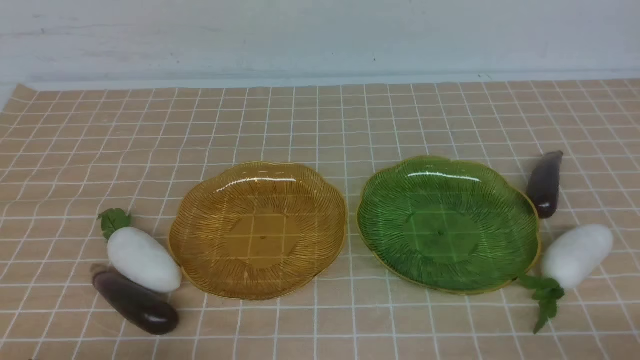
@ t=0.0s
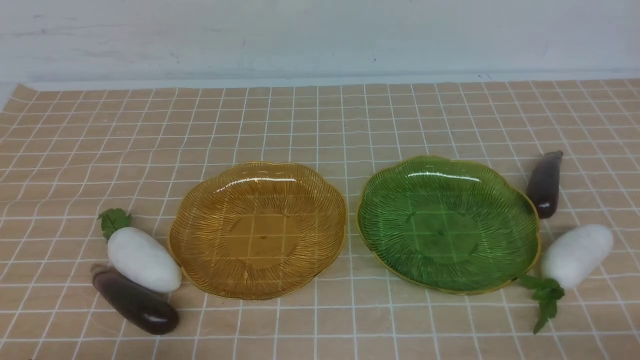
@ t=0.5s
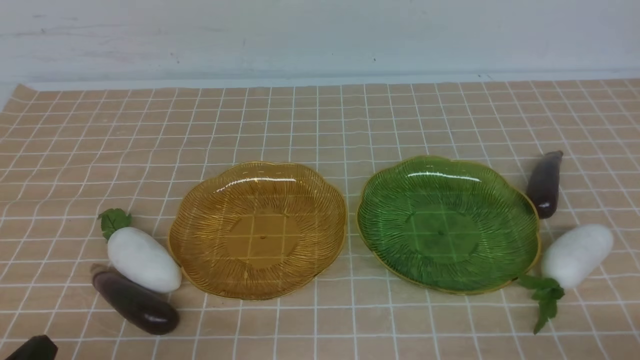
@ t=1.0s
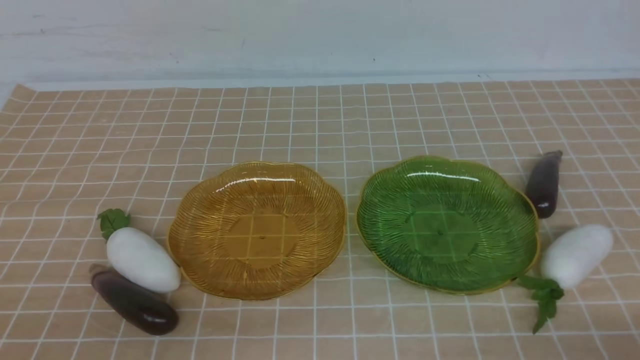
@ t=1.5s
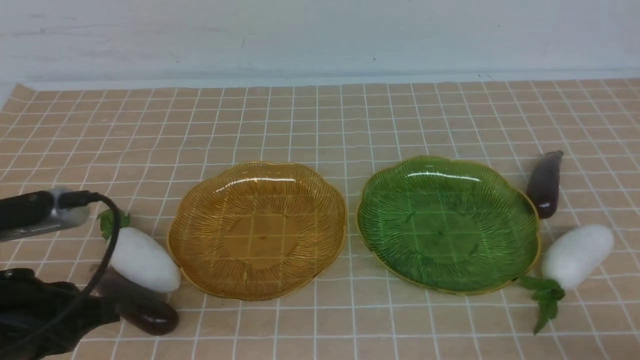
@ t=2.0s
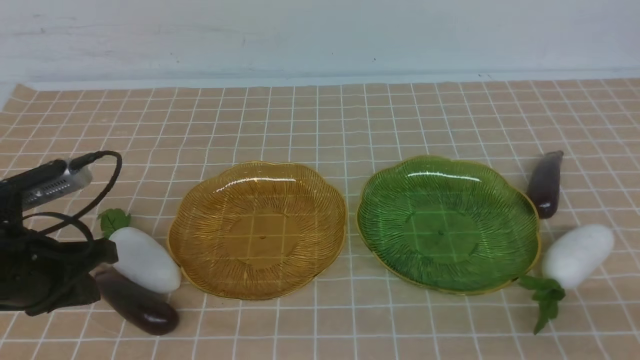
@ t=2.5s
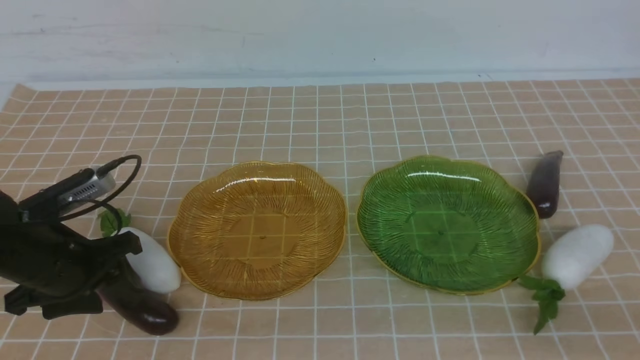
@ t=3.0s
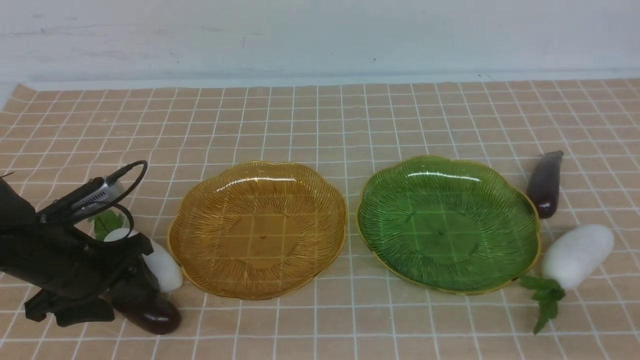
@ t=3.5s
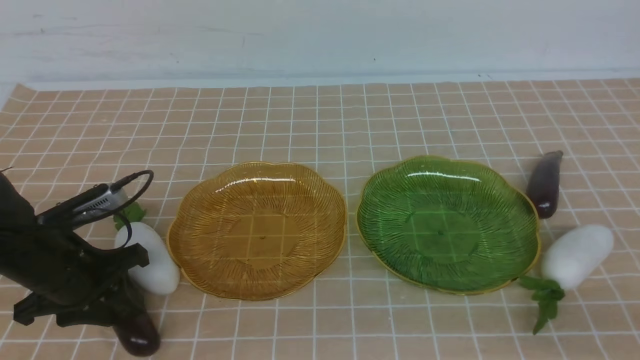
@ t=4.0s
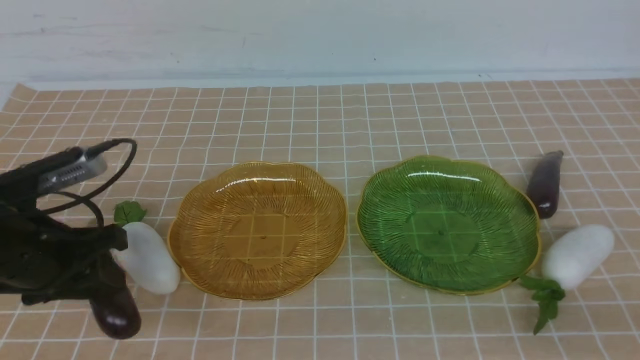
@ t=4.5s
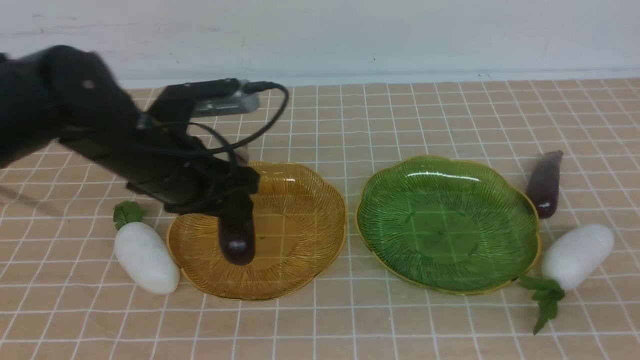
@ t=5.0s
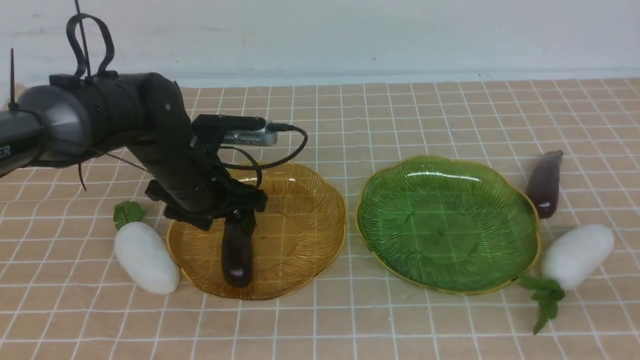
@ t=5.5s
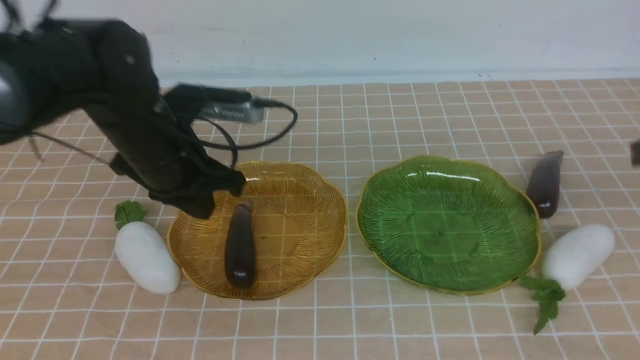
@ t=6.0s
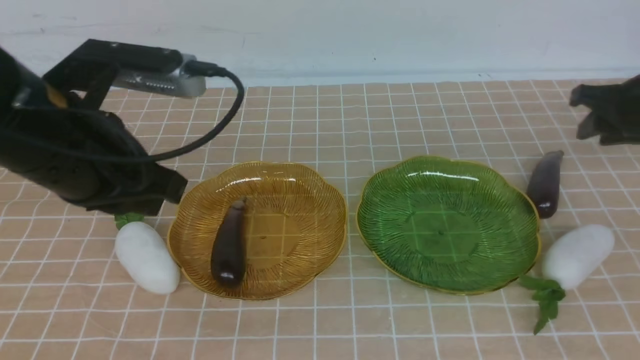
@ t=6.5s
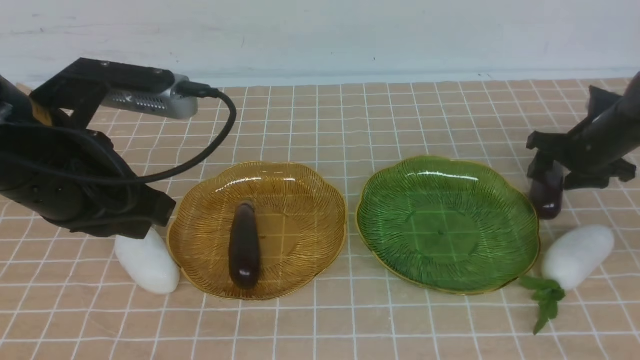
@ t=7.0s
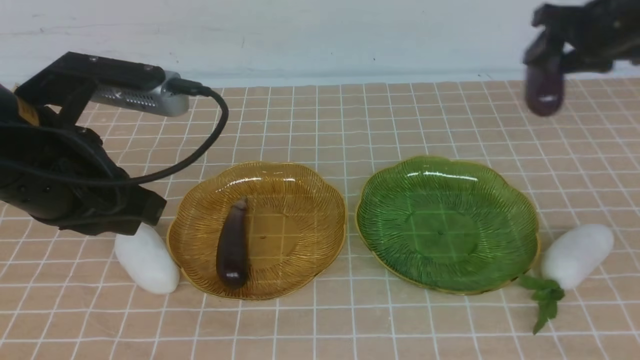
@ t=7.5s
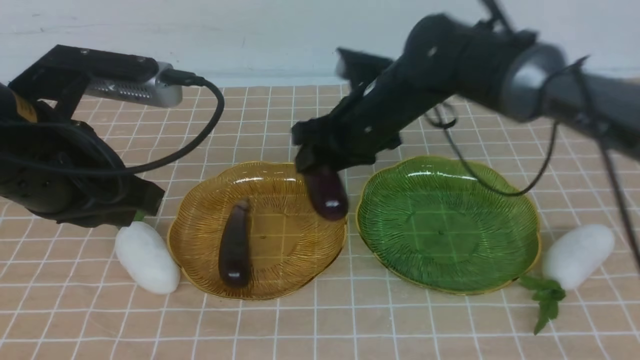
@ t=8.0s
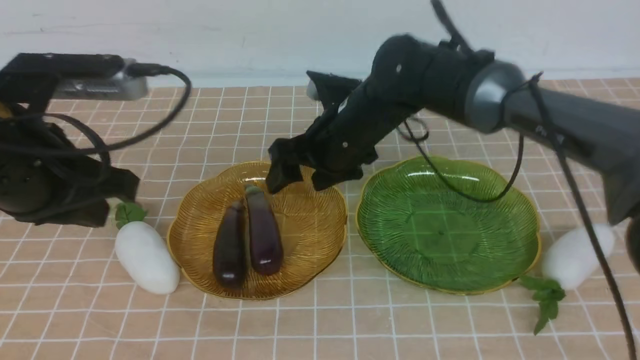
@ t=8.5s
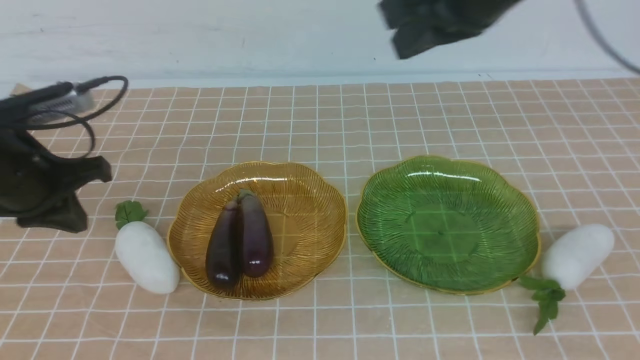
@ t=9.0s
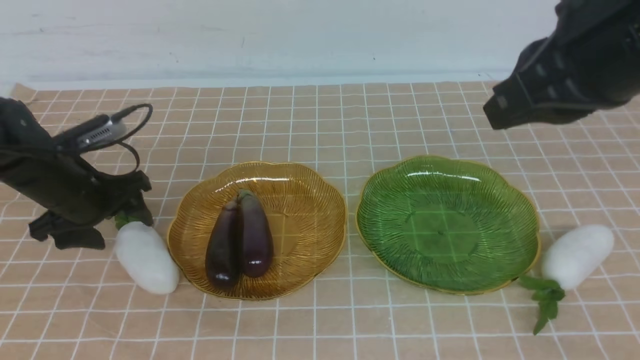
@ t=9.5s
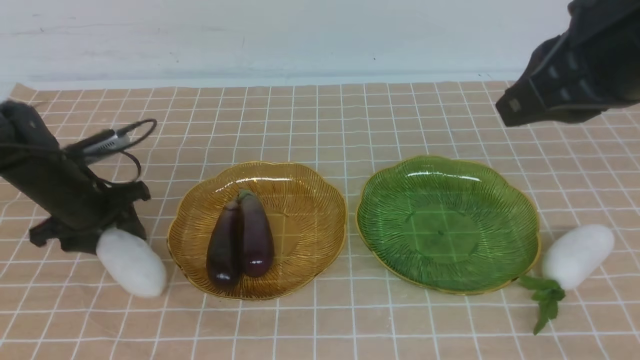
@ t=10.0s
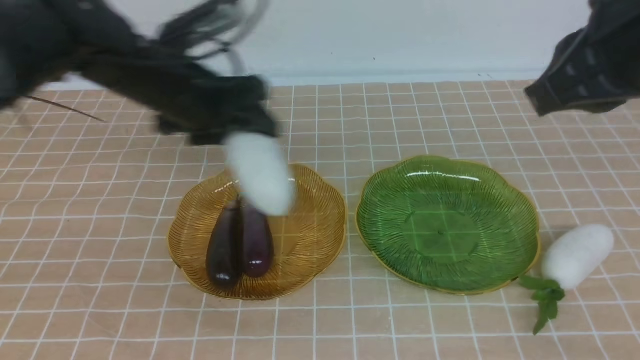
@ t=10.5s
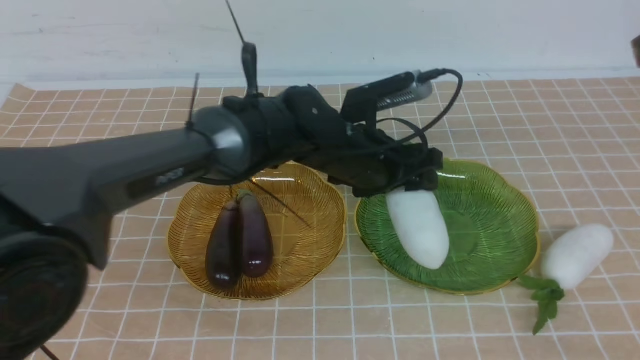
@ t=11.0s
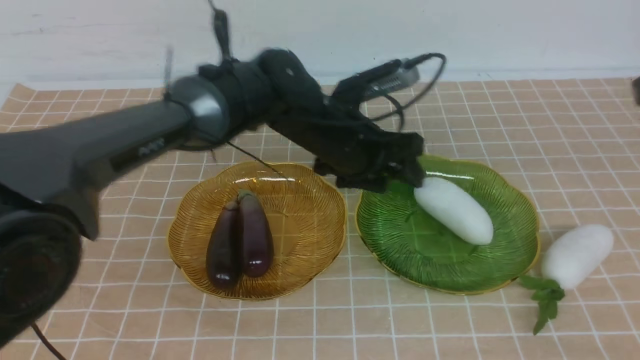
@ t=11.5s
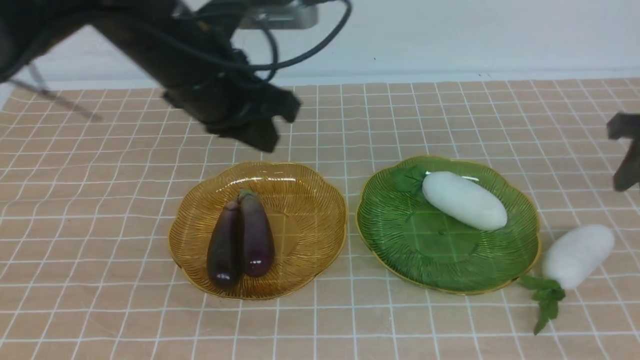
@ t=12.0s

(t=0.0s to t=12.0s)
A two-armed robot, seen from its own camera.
Step, t=0.0s - t=5.5s: use the left arm to grab an eggplant and put it into the left plate.
Step, t=6.0s - t=8.0s: use the right arm to grab an eggplant and put it into the left plate.
Step, t=8.5s - t=11.0s: use the left arm to grab a radish and put it into the right plate.
t=0.0s - t=2.0s: The left gripper travels forward and upward by approximately 15 cm.
t=2.0s - t=4.0s: The left gripper travels forward and downward by some 15 cm, and opens up.
t=4.0s - t=6.0s: The left gripper moves up and down over approximately 15 cm, changing direction 2 times, and closes. The right gripper goes about 25 cm forward.
t=6.0s - t=8.0s: The right gripper goes approximately 30 cm to the left, and opens its fingers, while the left gripper travels backward by approximately 5 cm.
t=8.0s - t=10.0s: The right gripper goes some 30 cm upward, to the right and backward, and closes; the left gripper travels forward, to the right and downward by some 20 cm, and opens up.
t=10.0s - t=12.0s: The right gripper is displaced downward, to the right and forward by approximately 30 cm, and opens; the left gripper heads backward and upward, covering some 15 cm, goes to the right and returns, some 15 cm each way, and closes its fingers.

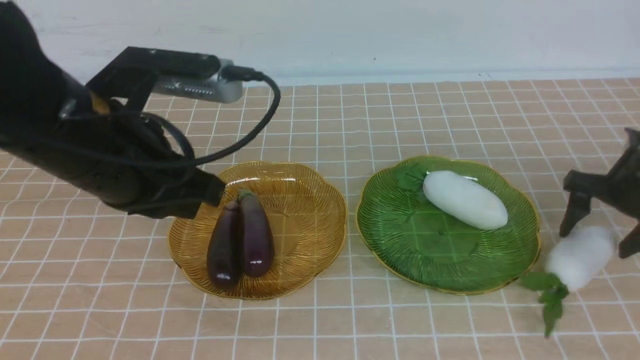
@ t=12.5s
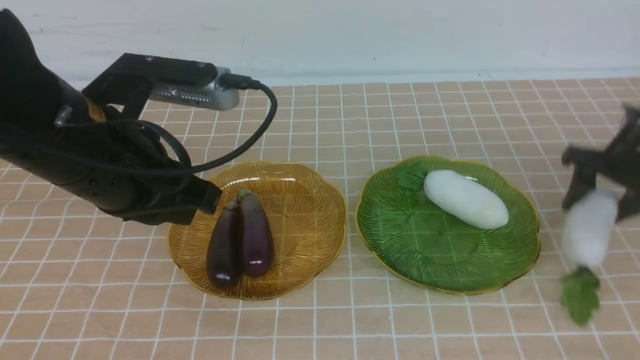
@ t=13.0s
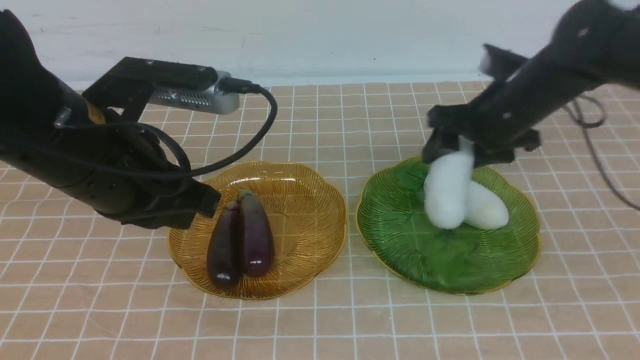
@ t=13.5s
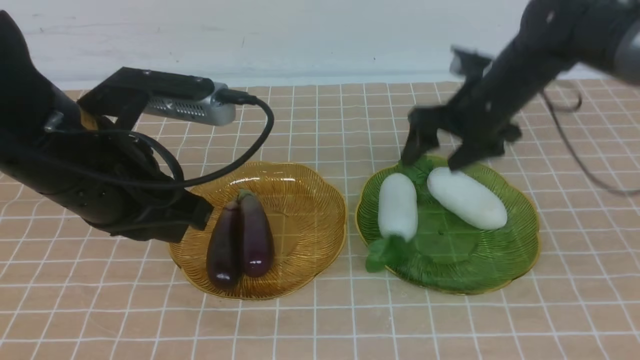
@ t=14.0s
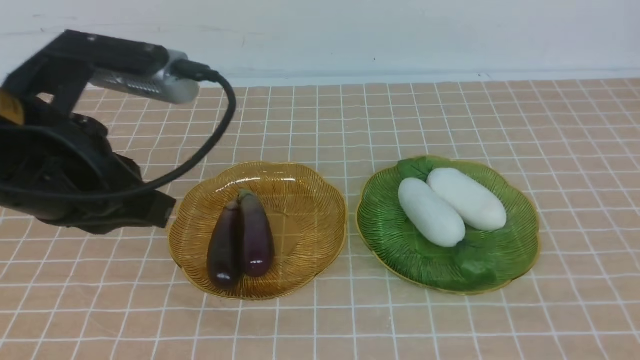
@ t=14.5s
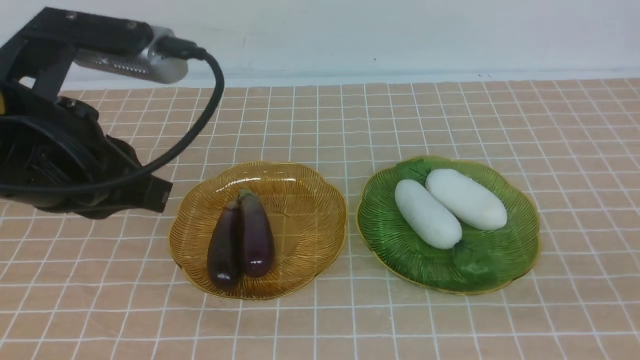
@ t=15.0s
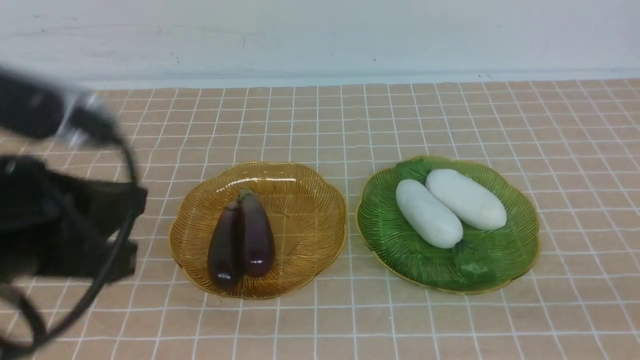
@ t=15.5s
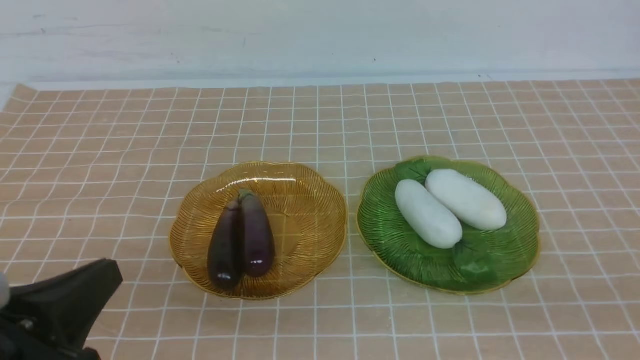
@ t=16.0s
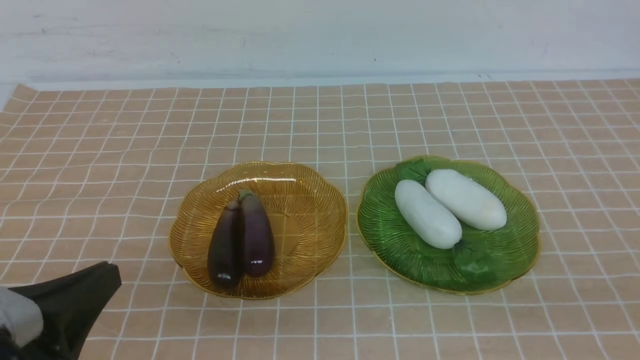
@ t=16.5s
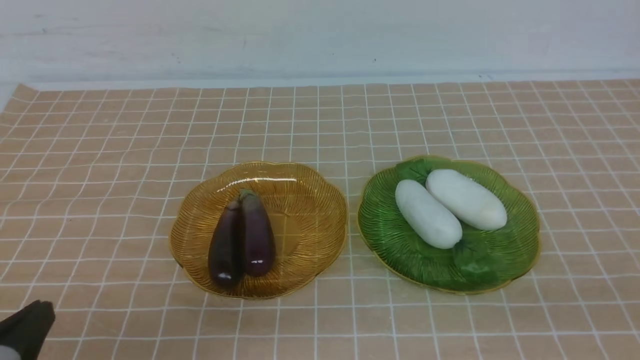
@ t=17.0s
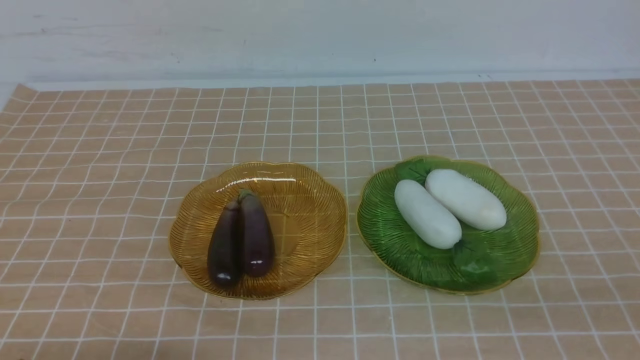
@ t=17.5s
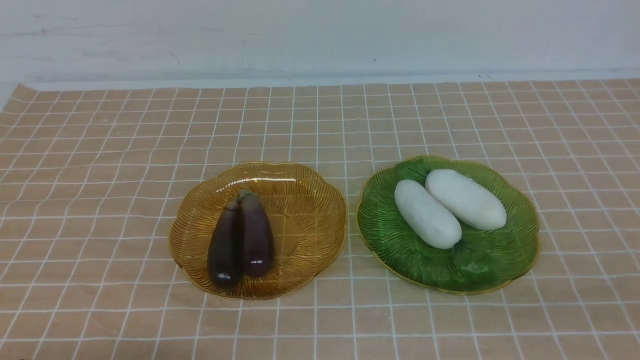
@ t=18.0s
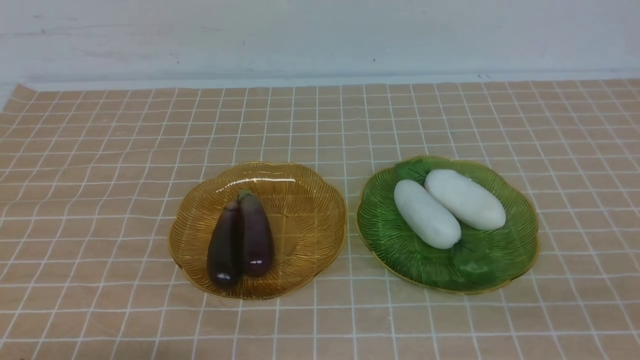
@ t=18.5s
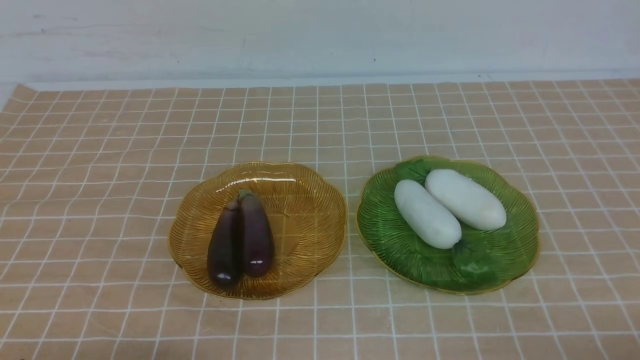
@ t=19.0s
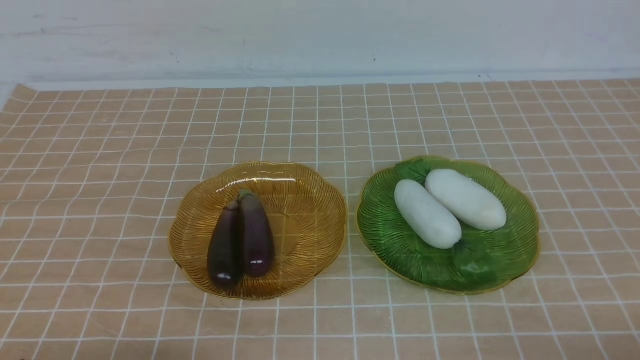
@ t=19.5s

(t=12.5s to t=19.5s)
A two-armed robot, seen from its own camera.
Step, t=12.5s - t=14.0s: use the right arm to grab a radish and put it into the right plate.
t=12.5s - t=14.5s: The right gripper is displaced backward by some 40 cm, and closes. Meanwhile the left gripper goes about 5 cm backward.
t=14.5s - t=16.0s: The left gripper goes about 20 cm downward, backward and to the left.
t=16.0s - t=17.5s: The left gripper travels downward by approximately 5 cm.
